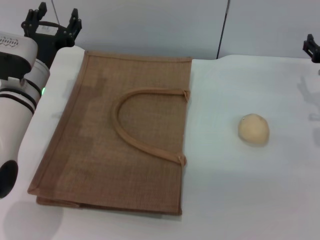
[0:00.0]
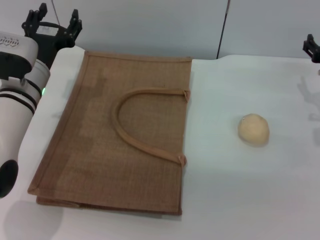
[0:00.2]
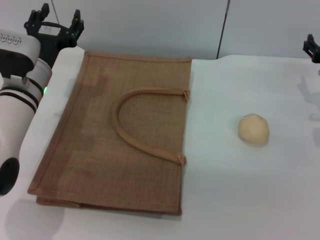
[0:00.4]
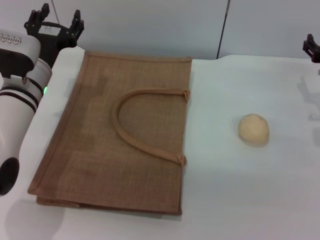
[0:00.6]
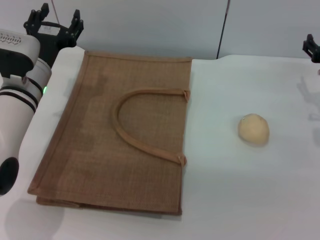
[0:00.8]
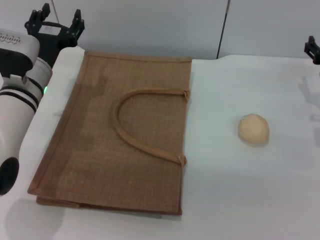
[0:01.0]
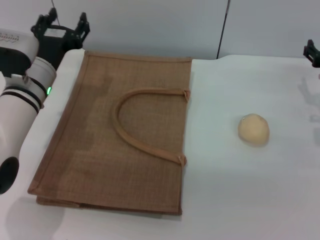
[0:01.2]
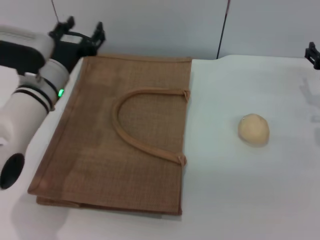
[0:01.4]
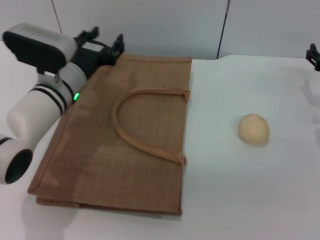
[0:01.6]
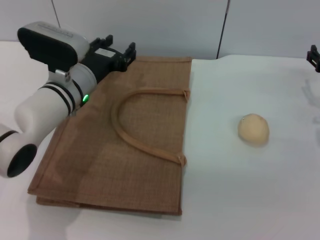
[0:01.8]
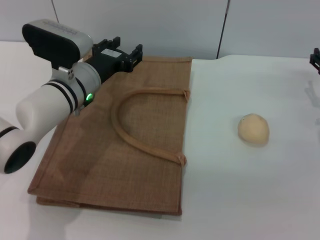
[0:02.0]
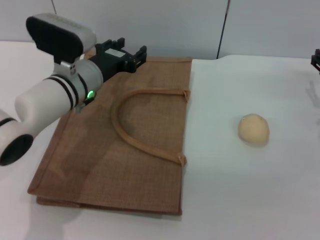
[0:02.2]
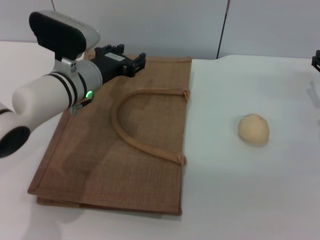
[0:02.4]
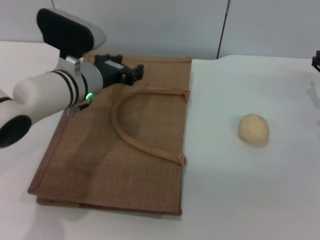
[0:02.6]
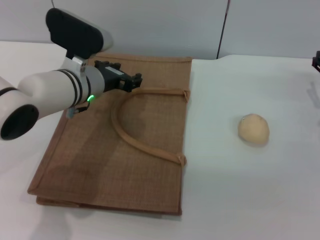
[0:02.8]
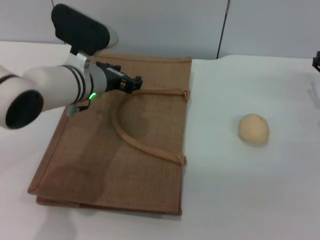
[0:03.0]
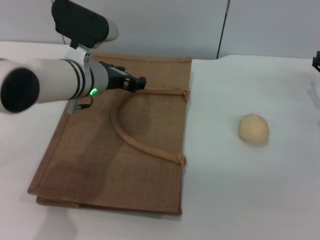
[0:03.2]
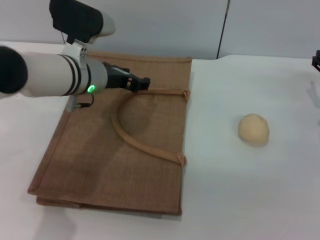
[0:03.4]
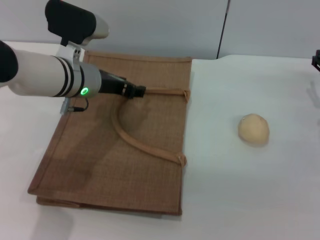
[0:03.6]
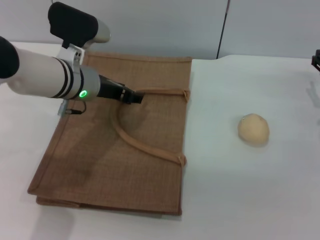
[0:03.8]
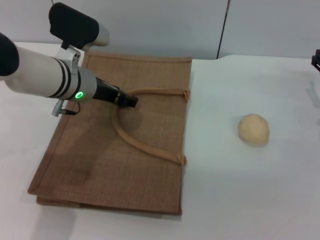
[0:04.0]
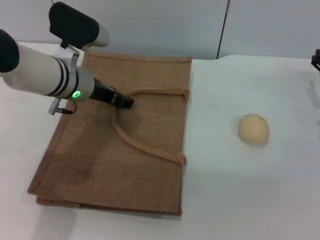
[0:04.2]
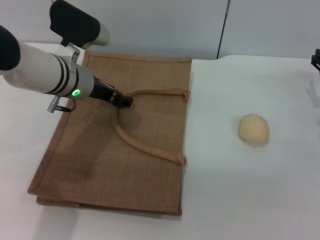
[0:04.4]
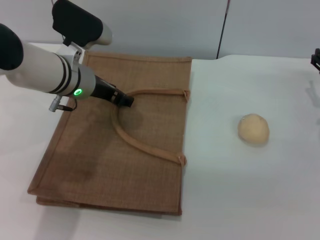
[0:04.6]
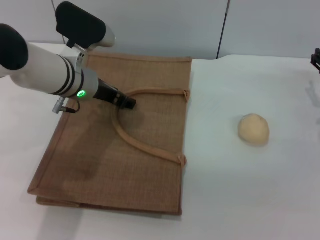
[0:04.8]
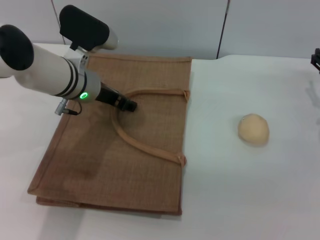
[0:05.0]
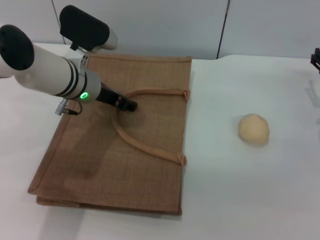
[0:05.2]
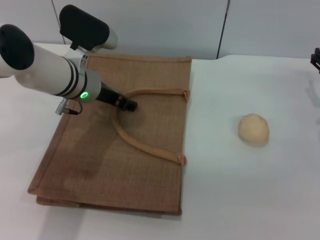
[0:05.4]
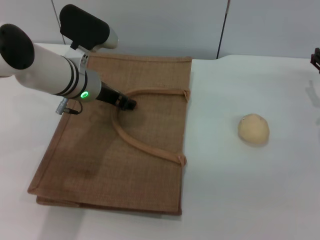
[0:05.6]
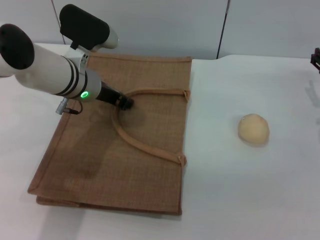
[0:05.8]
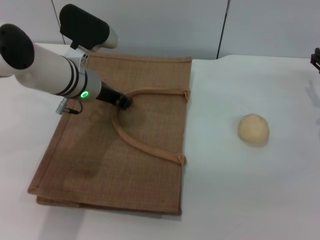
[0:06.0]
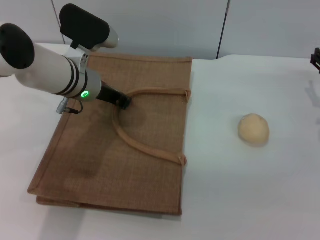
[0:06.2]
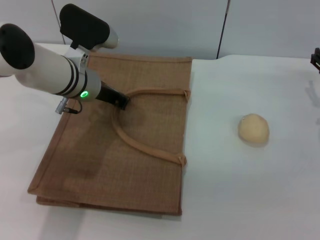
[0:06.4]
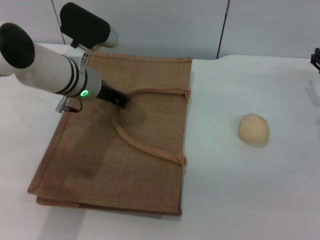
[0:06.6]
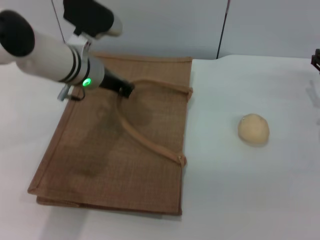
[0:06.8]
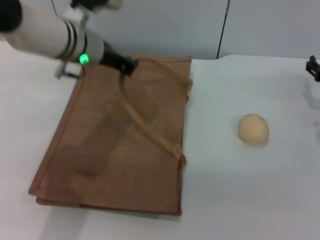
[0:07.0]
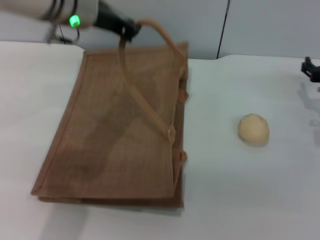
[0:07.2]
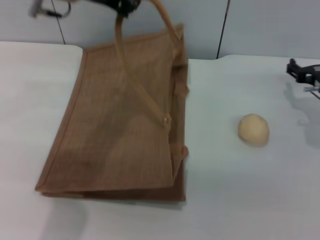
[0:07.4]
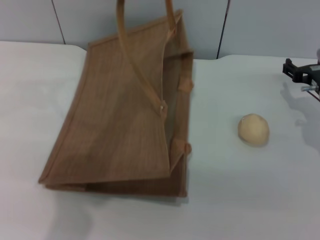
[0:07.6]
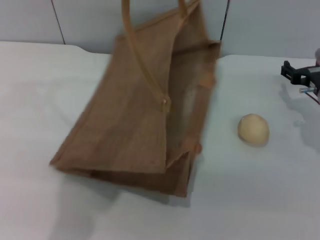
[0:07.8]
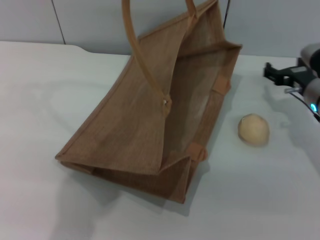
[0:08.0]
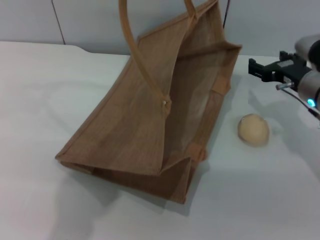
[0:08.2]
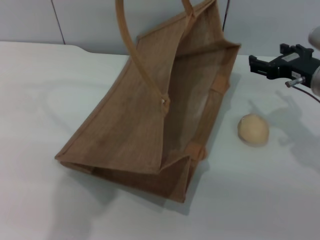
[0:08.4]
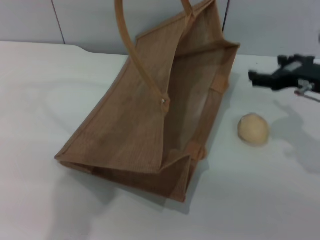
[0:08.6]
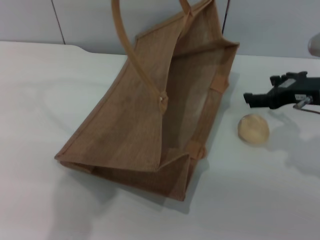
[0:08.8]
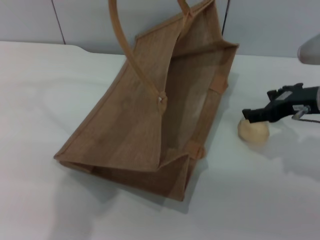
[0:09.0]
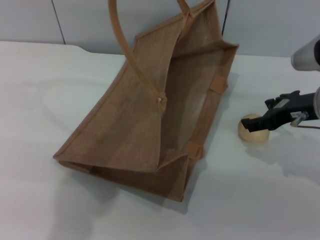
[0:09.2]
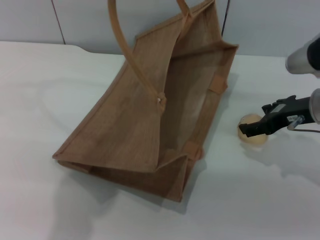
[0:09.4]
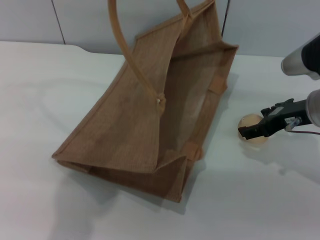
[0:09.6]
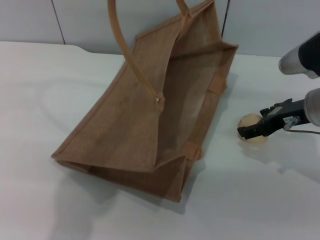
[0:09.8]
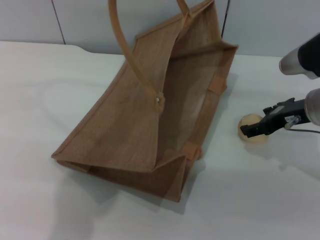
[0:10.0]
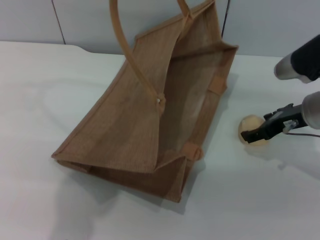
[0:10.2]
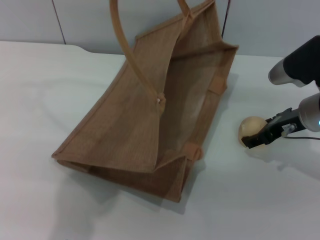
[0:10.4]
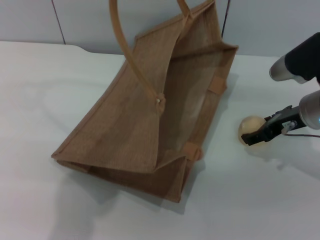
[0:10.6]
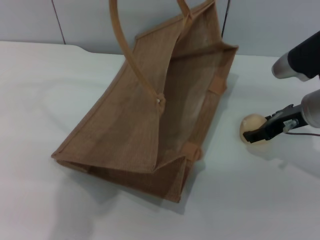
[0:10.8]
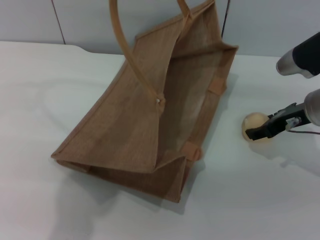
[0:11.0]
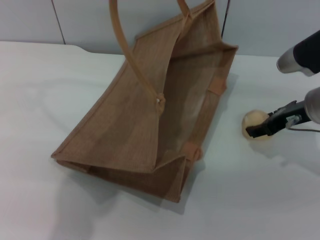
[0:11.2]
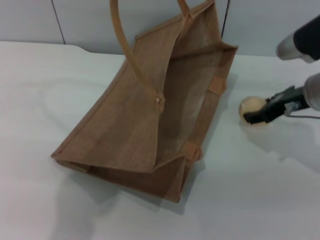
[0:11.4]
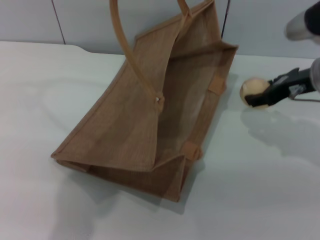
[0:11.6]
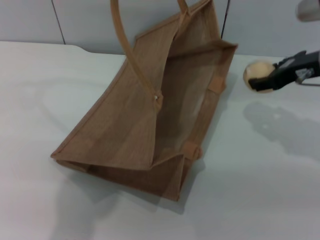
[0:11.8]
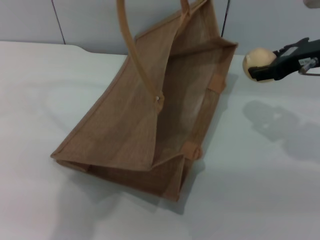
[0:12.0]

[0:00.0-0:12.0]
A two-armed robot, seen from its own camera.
Task of the whole recording: pick up the egg yolk pastry from the table and place it in the brown handbag.
Step, 0:00.0 to 0:08.0: Lift the woven bag with the left gripper to open it.
Step, 0:08.2 to 0:11.6: Pick up the egg yolk pastry with the right gripper.
0:00.0 to 0:01.6: The grippers move only a little.
0:03.0 to 0:06.0: The grippers make only small movements.
0:06.0 to 0:07.6: The left gripper heads upward, covering some 20 cm, and closes.
0:07.6 to 0:09.0: The right gripper goes roughly 10 cm upward.
0:09.0 to 0:10.4: The grippers make only small movements.
0:10.4 to 0:12.0: The right gripper goes about 10 cm upward, and closes.

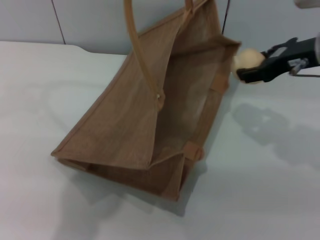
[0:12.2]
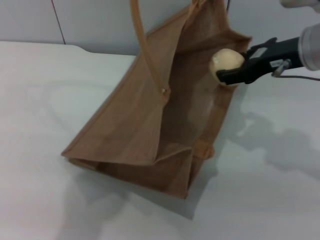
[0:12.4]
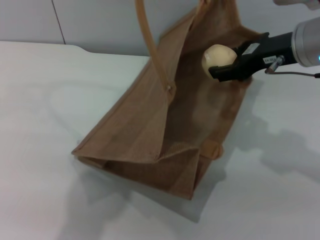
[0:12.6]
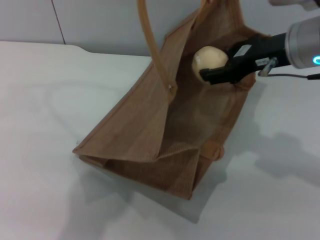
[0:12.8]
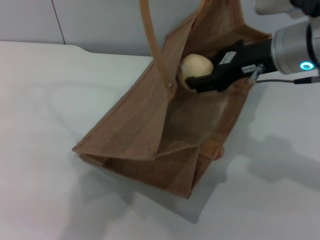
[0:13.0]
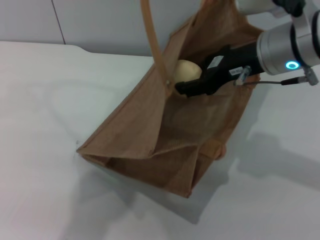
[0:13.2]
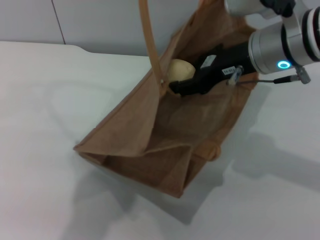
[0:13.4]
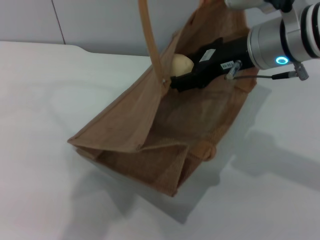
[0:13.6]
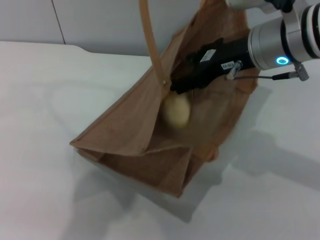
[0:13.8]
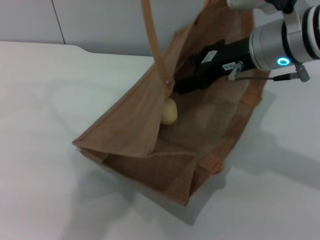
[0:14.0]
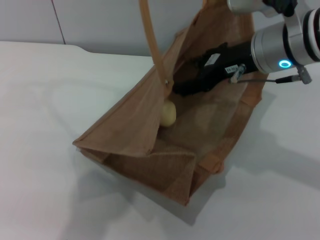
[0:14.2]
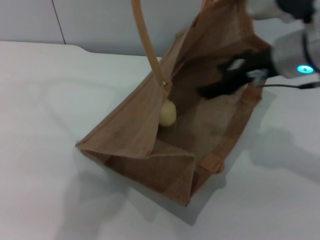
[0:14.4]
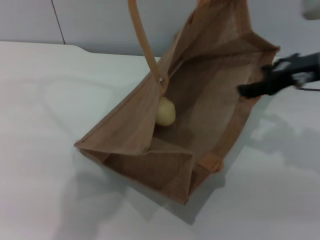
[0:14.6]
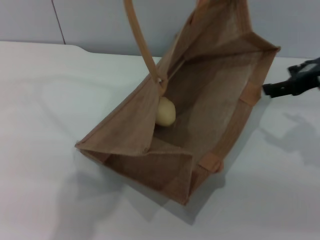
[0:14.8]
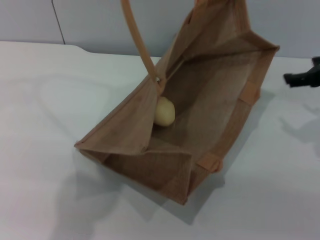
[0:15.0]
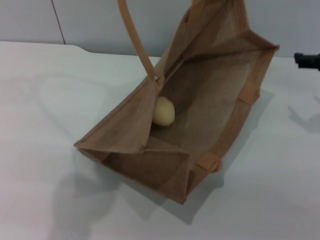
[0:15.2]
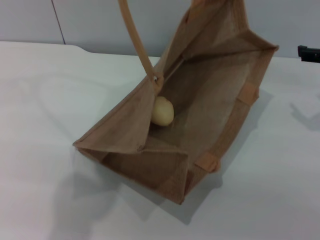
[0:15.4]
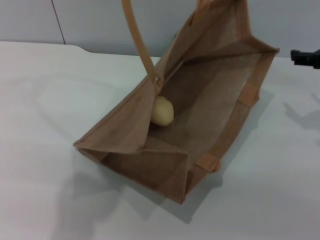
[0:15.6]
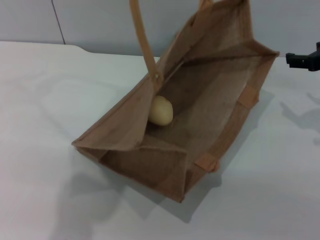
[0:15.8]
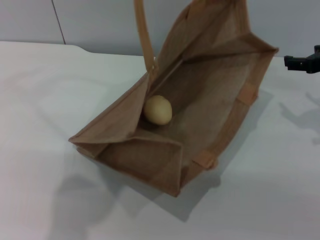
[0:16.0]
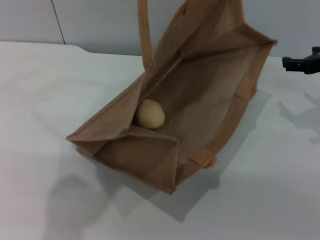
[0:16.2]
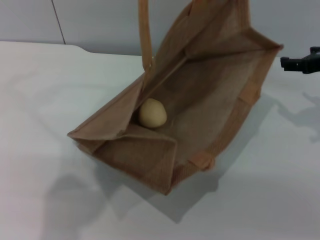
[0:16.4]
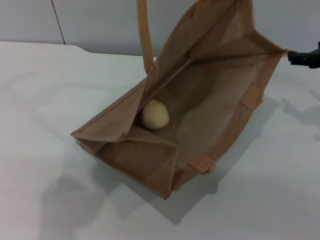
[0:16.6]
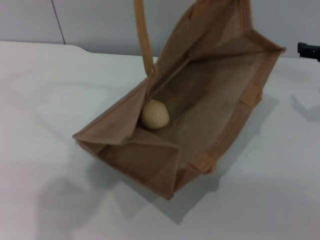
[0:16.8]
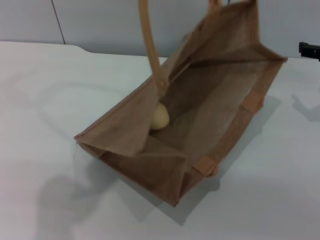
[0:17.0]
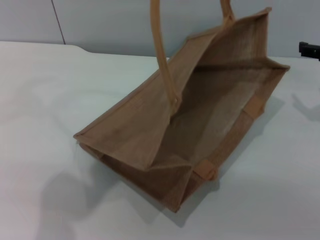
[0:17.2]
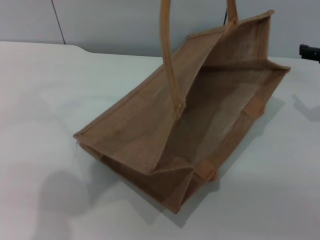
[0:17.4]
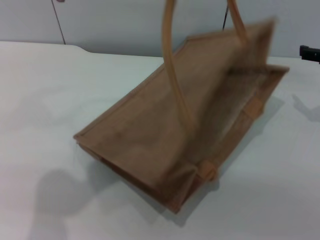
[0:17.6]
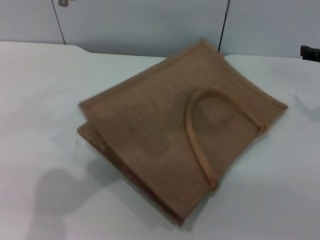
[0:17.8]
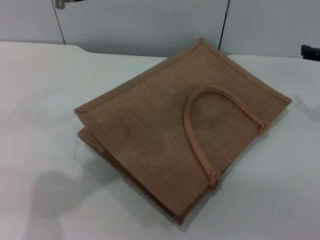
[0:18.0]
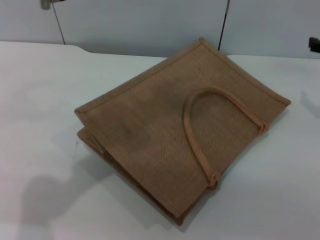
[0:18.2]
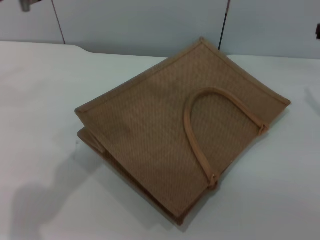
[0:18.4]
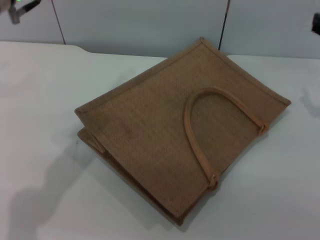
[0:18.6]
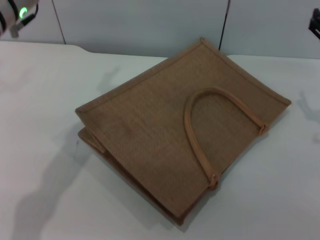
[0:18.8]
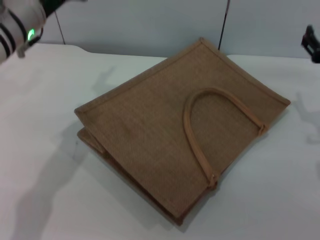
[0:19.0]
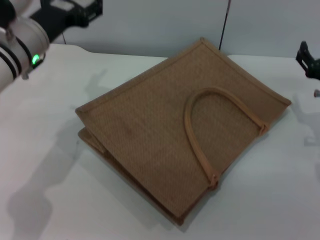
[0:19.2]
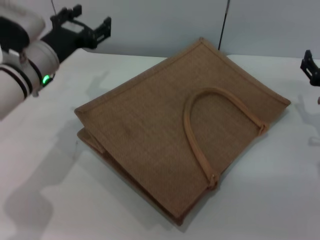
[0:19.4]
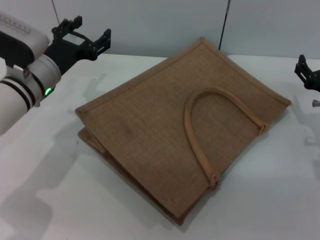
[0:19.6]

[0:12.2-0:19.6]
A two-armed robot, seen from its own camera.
Task of the whole recording: pick up the egg yolk pastry from the table and place it in the brown handbag.
Step, 0:12.2 to 0:14.0: Place the egg yolk pastry into the woven bag with the right gripper.
Step, 0:14.2 to 0:17.8: Lower the woven bag with the left gripper to close it.
0:12.2 to 0:13.6: The right gripper travels to the left by roughly 10 cm.
0:13.6 to 0:15.2: The right gripper moves to the right, roughly 15 cm, and opens its fingers.
0:15.2 to 0:16.6: The left gripper opens its fingers.
0:16.6 to 0:18.2: The left gripper is displaced downward by about 5 cm.
0:18.2 to 0:19.6: The left gripper moves downward, roughly 20 cm, while the right gripper is displaced downward by some 10 cm.
